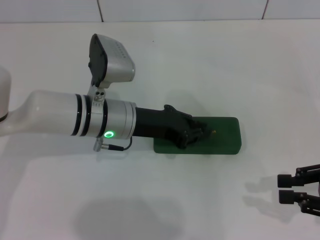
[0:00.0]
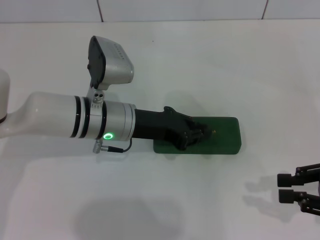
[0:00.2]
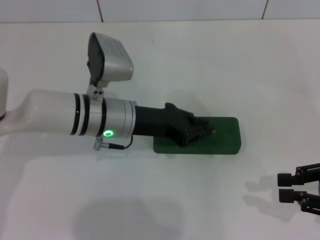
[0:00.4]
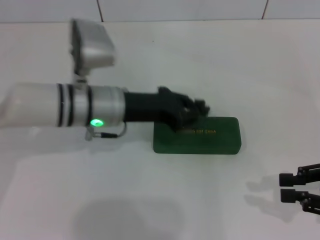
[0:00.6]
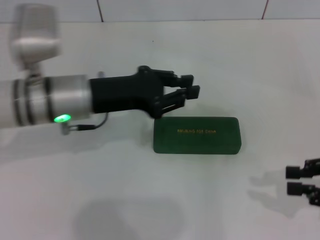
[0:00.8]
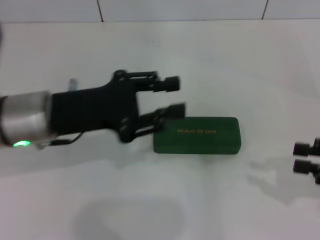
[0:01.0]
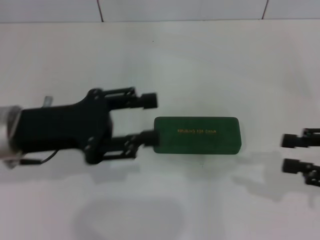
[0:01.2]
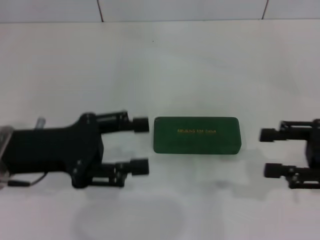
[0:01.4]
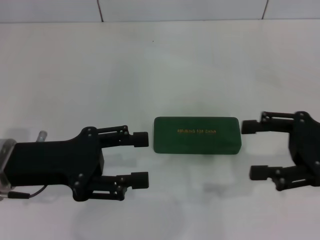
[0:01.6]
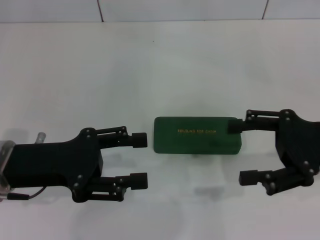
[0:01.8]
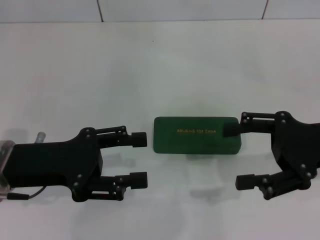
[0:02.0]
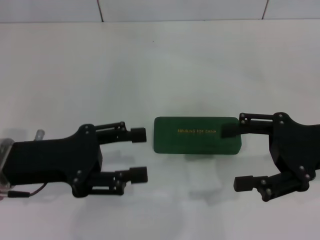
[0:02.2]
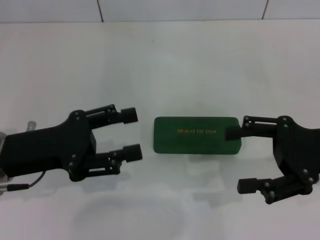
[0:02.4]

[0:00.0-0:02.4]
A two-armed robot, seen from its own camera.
0:00.0 to 0:01.2: The left gripper moves to the left, backward and upward, approximately 15 cm.
0:01.2 to 0:02.4: The right gripper goes about 5 cm to the left, and opens up, while the left gripper opens up.
